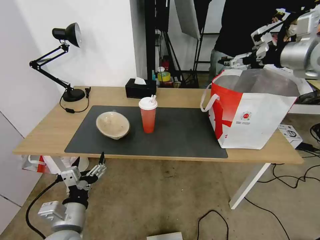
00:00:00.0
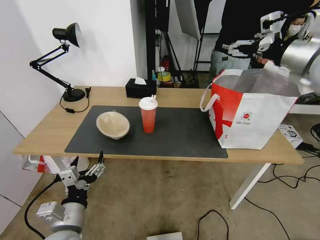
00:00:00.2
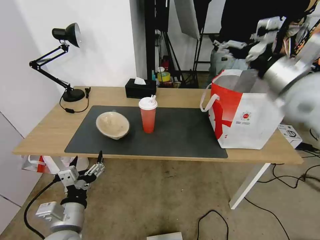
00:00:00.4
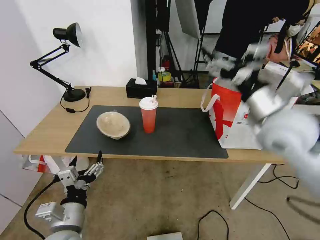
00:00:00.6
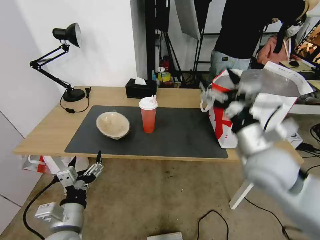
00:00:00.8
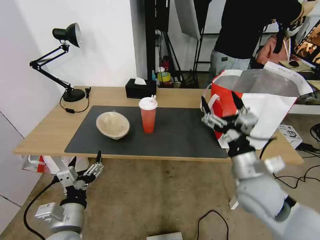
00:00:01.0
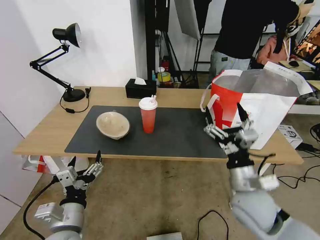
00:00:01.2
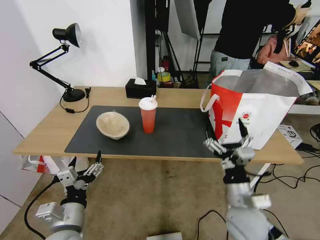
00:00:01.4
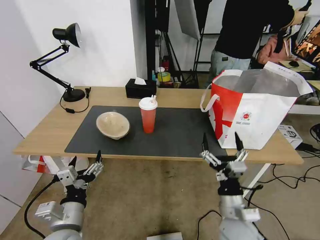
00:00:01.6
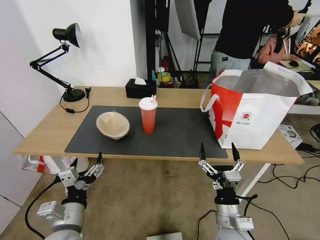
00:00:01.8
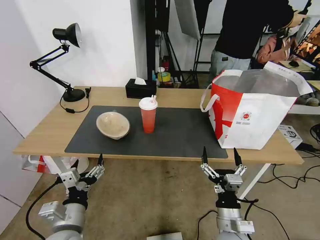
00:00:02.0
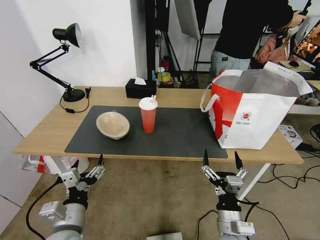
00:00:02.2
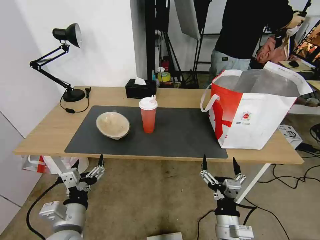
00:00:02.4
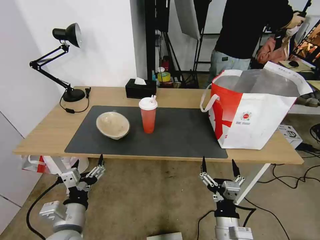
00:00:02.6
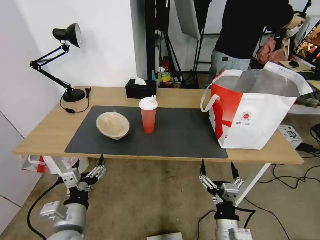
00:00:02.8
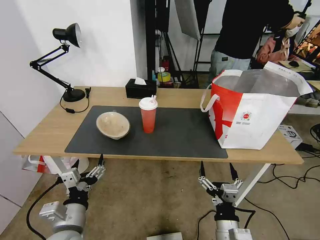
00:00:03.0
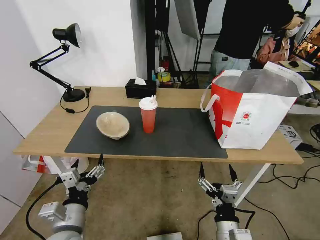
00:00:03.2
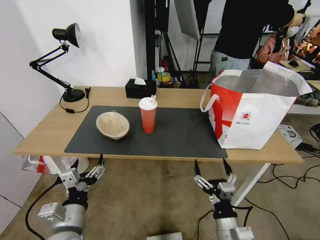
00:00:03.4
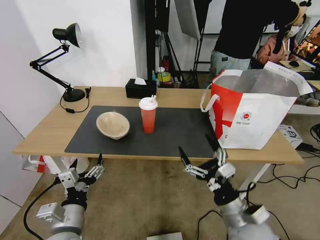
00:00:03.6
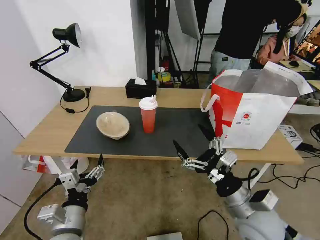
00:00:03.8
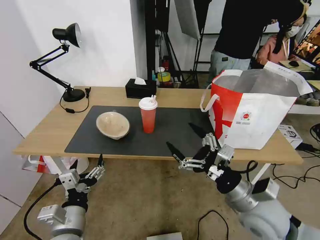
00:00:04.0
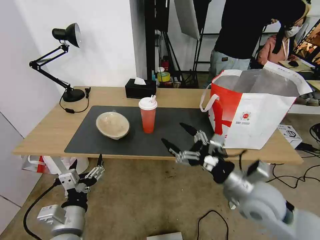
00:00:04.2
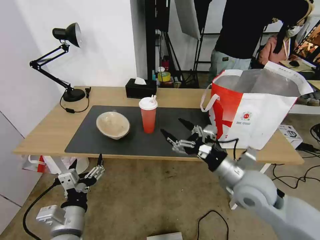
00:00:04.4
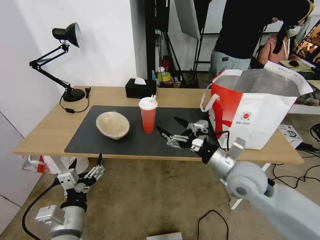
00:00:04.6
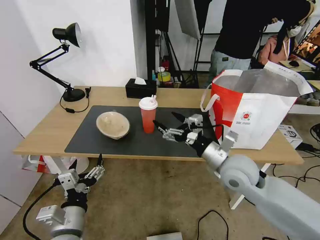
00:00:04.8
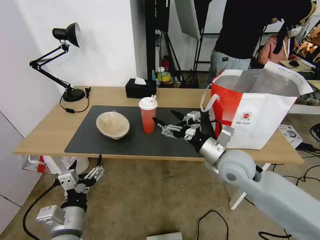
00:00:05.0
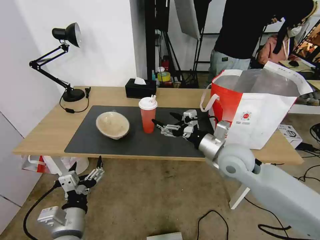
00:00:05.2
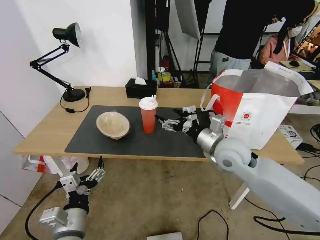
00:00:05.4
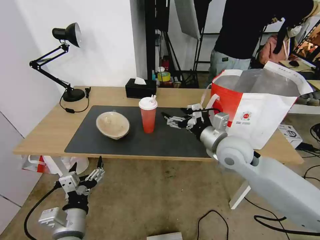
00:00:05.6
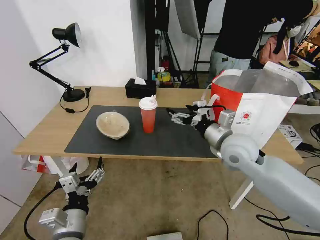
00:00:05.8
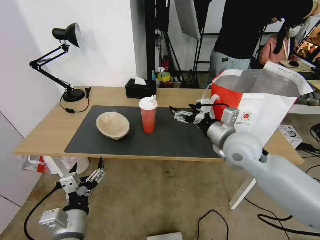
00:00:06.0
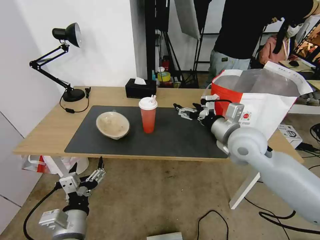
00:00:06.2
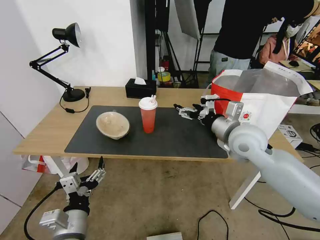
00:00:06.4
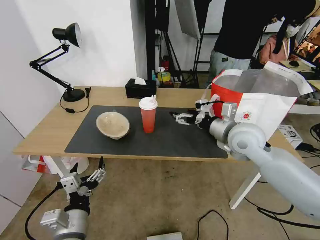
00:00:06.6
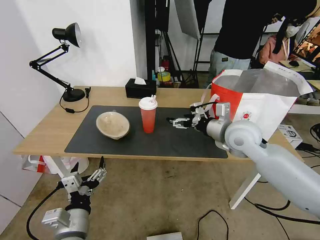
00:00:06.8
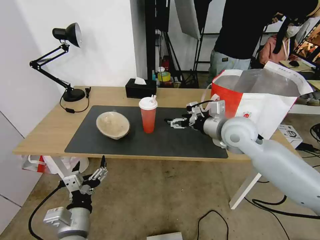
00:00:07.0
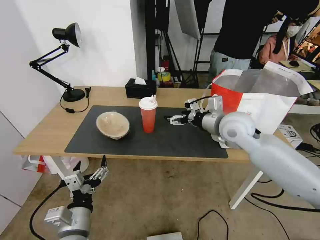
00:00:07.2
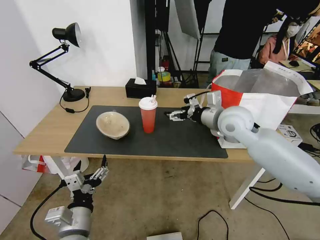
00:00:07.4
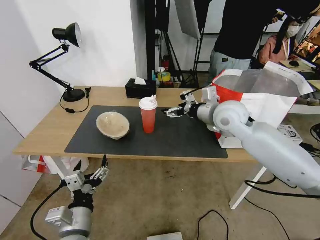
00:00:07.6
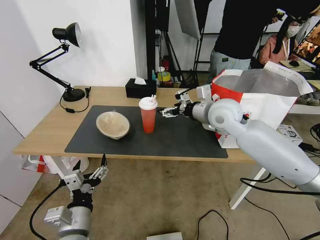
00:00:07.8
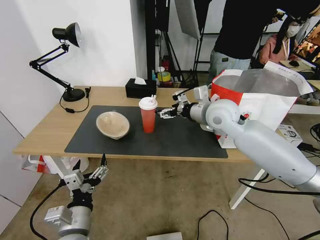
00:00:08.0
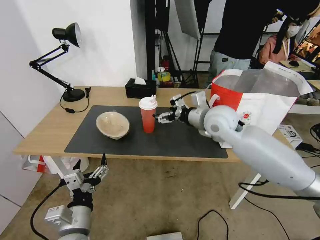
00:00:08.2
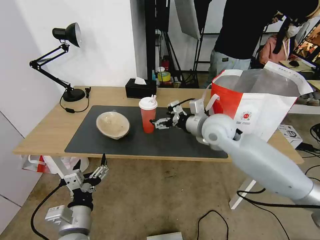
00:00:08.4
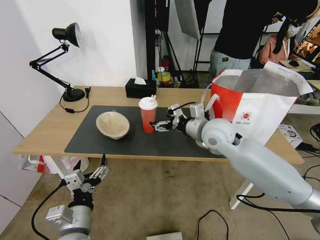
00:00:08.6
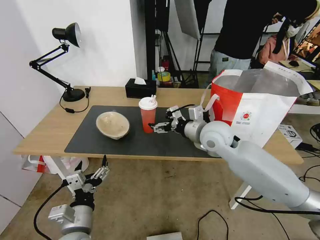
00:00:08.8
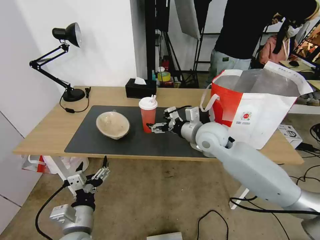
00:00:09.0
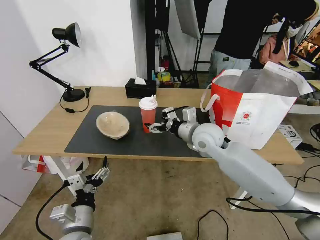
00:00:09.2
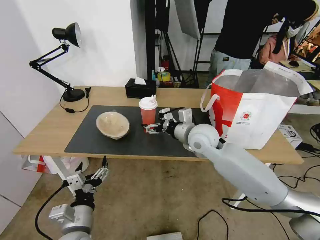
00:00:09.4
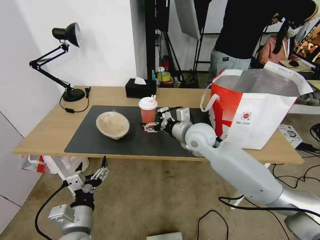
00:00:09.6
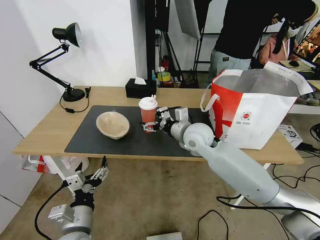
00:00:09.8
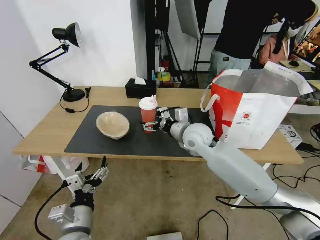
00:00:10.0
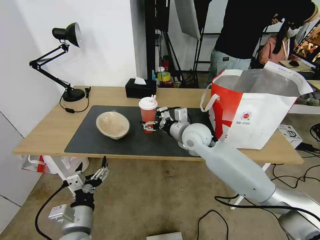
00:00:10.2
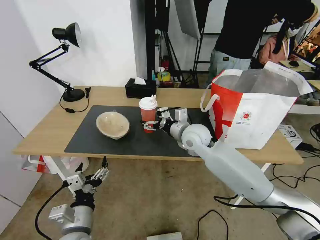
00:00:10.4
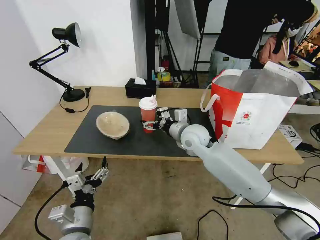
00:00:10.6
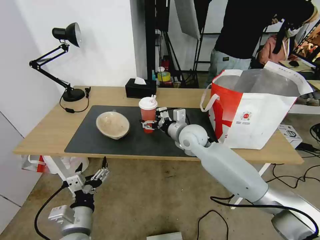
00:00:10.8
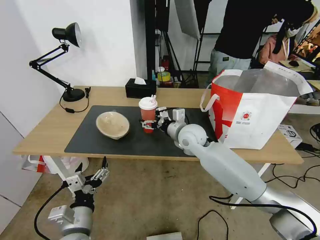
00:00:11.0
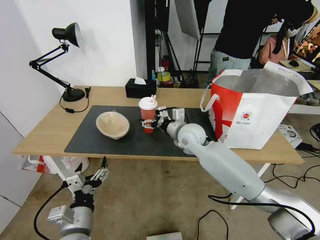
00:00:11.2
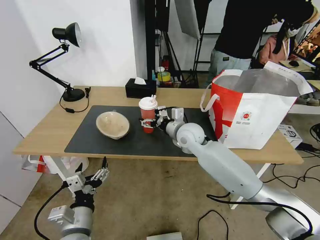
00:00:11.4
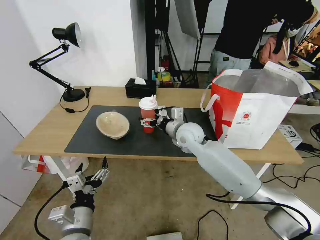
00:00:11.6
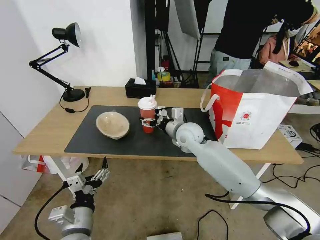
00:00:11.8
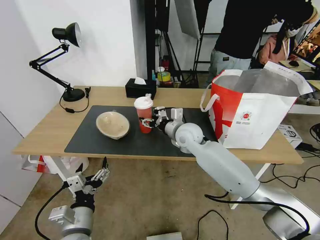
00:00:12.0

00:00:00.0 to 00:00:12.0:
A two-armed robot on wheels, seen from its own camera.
Task of the whole recording: Pick up the trash from the table and place it into the takeout bag.
00:00:00.0 to 00:00:01.6: The right gripper shifts roughly 50 cm downward, backward and to the left.
00:00:01.6 to 00:00:03.0: The right gripper travels backward by some 5 cm.
00:00:03.0 to 00:00:04.4: The right gripper goes about 20 cm forward and upward.
00:00:04.4 to 00:00:06.0: The right gripper shifts some 10 cm forward and upward.
00:00:06.0 to 00:00:07.6: The right gripper heads forward, covering about 10 cm.
00:00:07.6 to 00:00:09.0: The right gripper travels downward by about 5 cm.
00:00:09.0 to 00:00:10.4: The right gripper moves about 5 cm.
00:00:10.4 to 00:00:12.0: There are only small adjustments of the grippers.

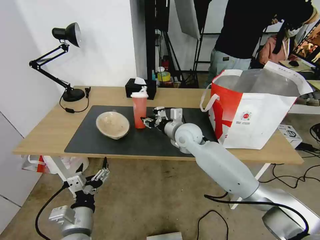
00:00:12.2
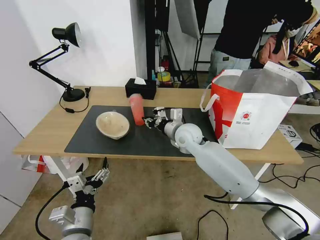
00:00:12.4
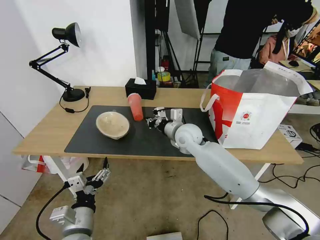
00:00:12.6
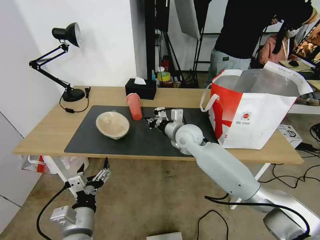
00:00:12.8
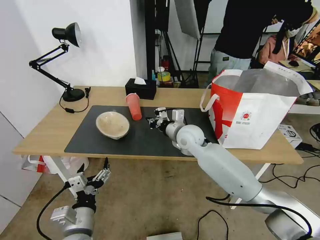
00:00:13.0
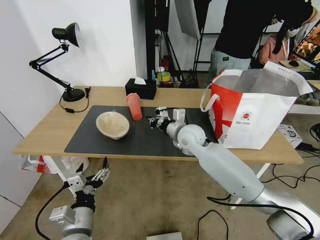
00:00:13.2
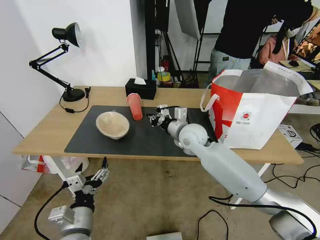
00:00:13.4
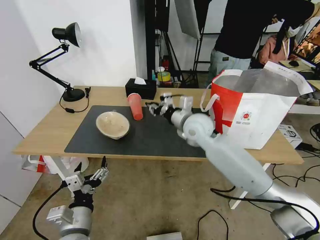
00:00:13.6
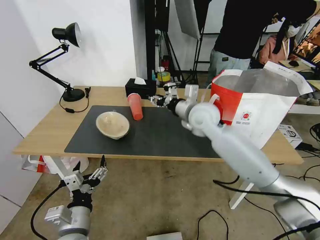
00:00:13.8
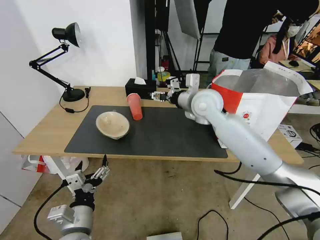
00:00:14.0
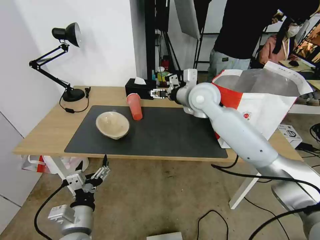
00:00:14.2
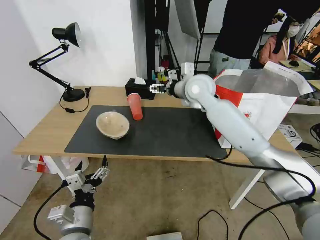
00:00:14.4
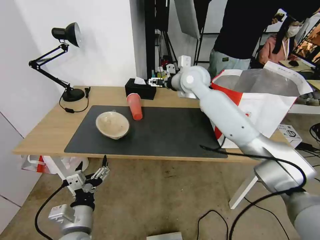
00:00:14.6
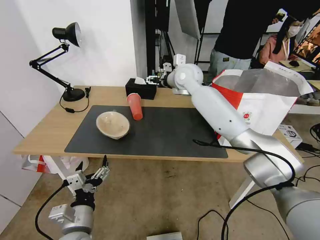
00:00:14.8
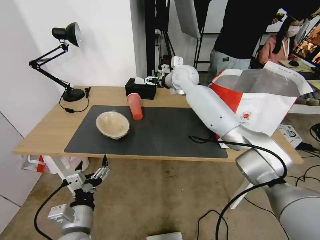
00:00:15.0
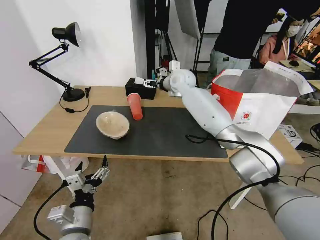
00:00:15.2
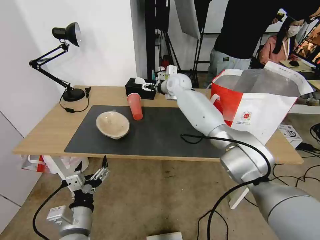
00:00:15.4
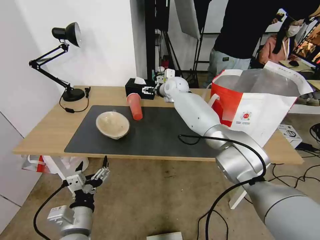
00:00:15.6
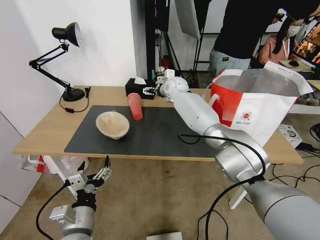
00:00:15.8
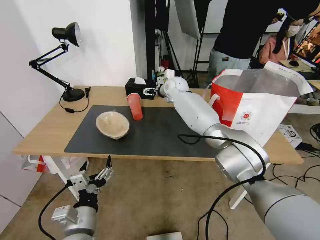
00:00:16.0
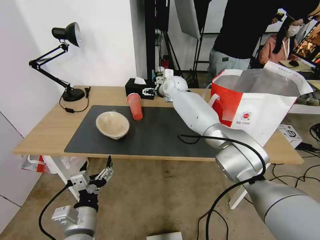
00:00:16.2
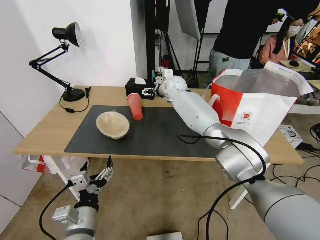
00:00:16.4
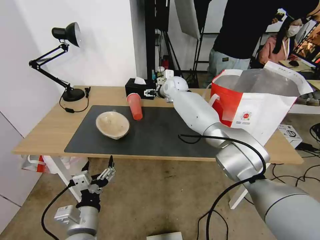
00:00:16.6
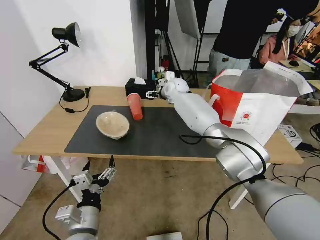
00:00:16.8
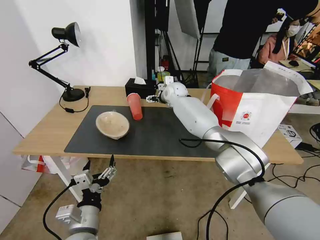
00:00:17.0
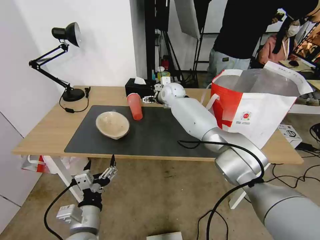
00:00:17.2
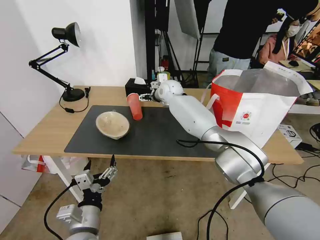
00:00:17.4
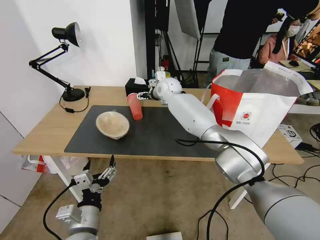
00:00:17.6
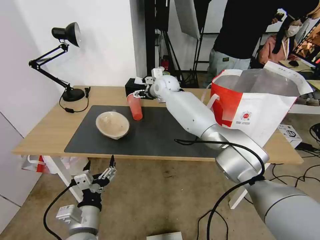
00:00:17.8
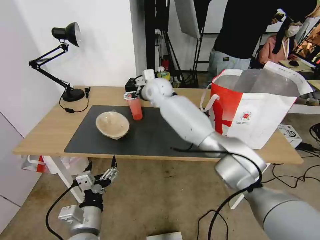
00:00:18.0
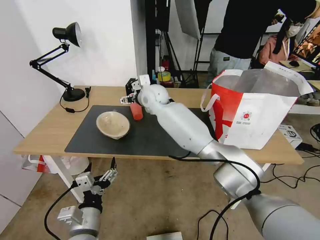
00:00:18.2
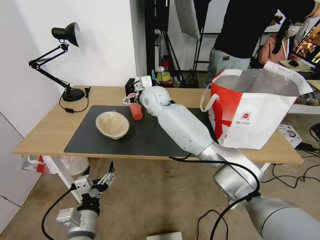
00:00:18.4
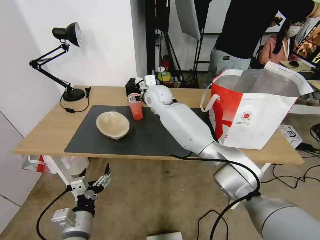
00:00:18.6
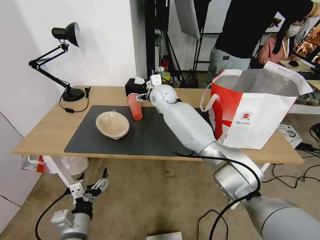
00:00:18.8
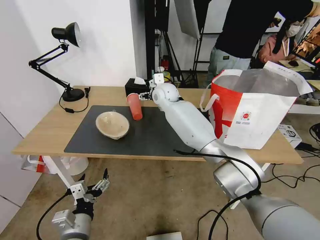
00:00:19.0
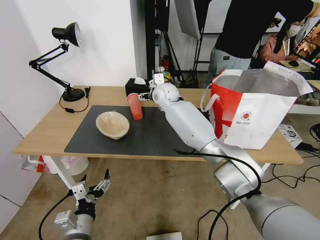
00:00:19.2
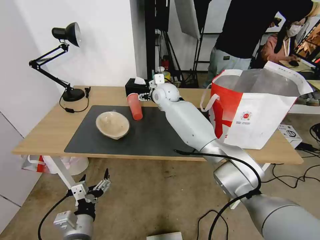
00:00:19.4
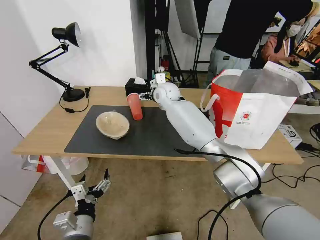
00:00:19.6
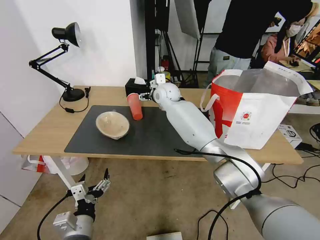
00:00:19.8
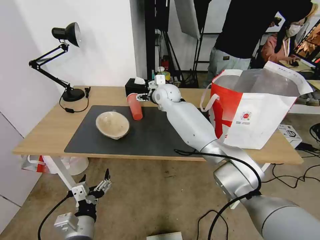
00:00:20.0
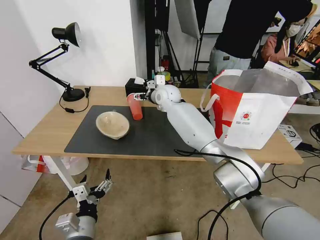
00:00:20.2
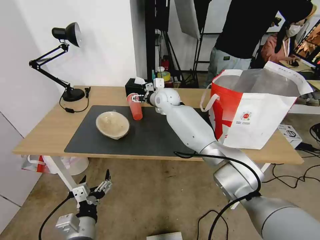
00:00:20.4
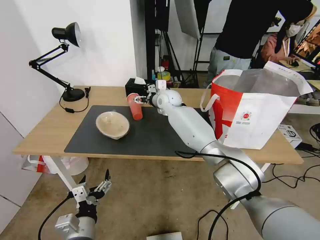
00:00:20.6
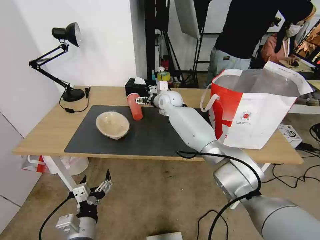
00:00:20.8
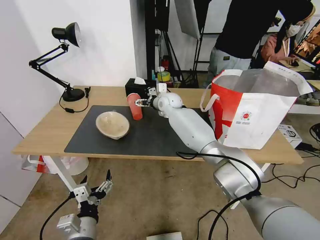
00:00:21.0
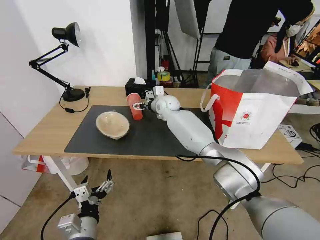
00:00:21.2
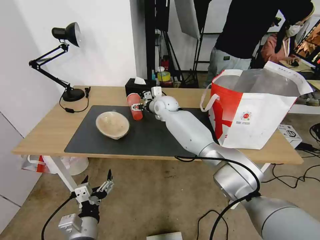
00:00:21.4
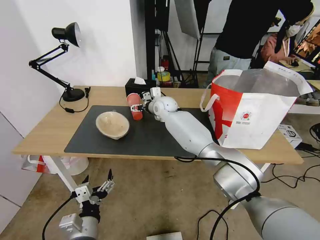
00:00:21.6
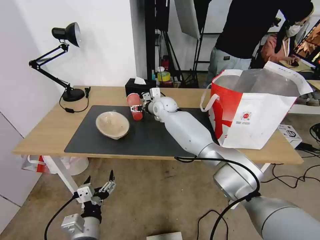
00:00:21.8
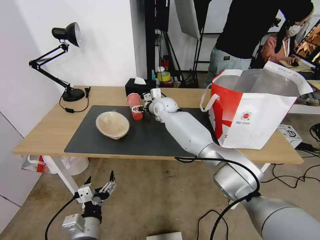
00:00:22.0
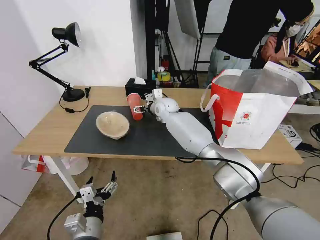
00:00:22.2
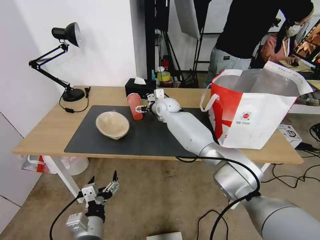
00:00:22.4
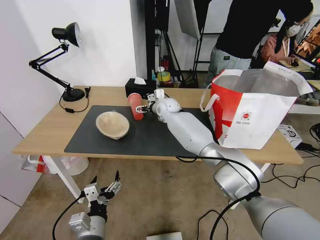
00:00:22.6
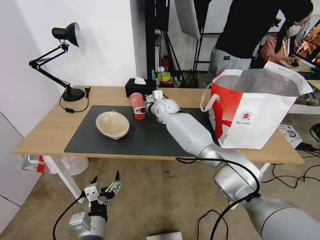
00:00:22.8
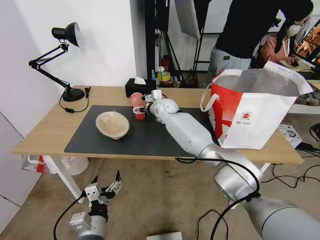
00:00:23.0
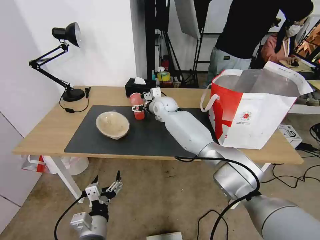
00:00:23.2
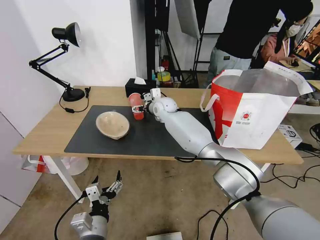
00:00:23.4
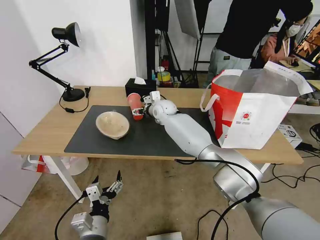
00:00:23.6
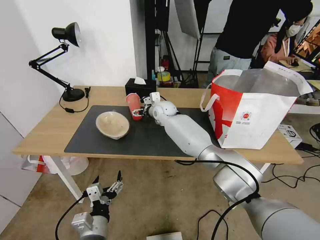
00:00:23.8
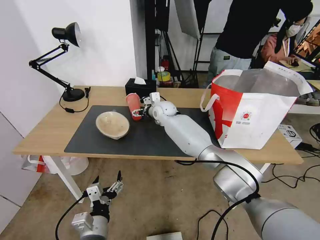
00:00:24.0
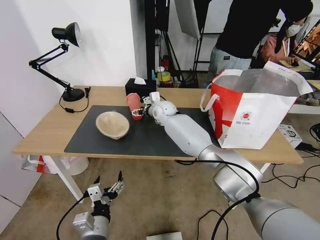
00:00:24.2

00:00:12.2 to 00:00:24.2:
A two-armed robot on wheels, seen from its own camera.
Task of the whole recording: Pick up the trash from the table and place it into the takeout bag.
00:00:12.2 to 00:00:13.8: The right gripper moves upward, approximately 10 cm, and closes, then reopens.
00:00:13.8 to 00:00:15.2: The right gripper shifts about 15 cm forward, and opens.
00:00:15.2 to 00:00:16.6: The grippers stay close to where they were, moving slightly.
00:00:16.6 to 00:00:18.2: The right gripper travels backward and to the left by roughly 15 cm.
00:00:18.2 to 00:00:19.8: The right gripper ends up approximately 5 cm from where it was.
00:00:19.8 to 00:00:21.2: The right gripper travels downward by approximately 5 cm.
00:00:21.2 to 00:00:24.2: The grippers move only a little.
